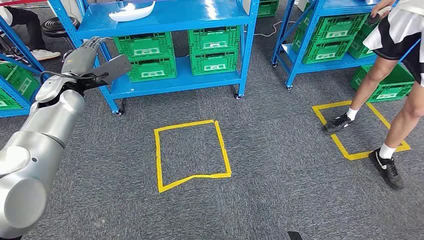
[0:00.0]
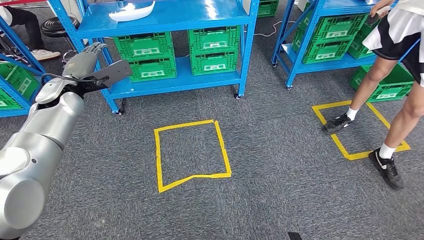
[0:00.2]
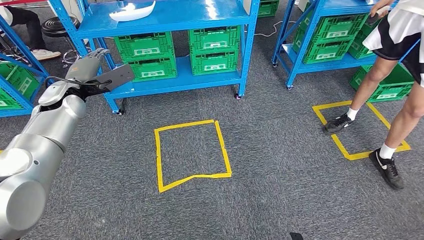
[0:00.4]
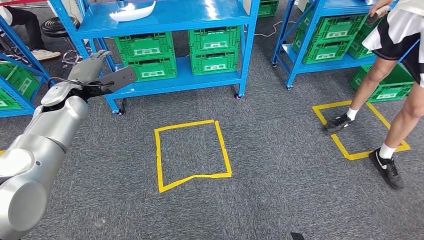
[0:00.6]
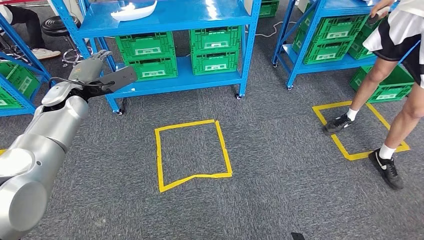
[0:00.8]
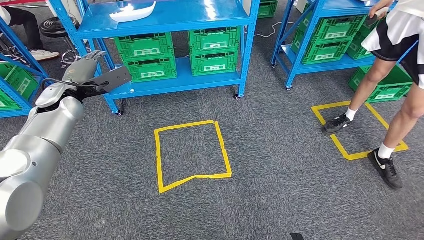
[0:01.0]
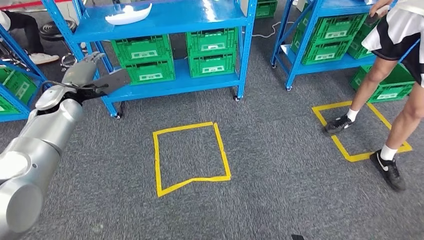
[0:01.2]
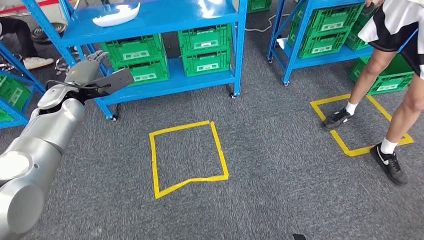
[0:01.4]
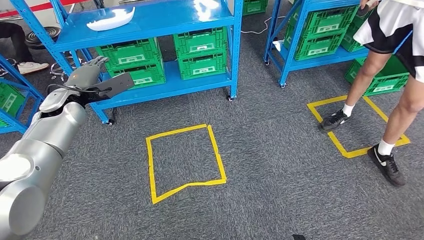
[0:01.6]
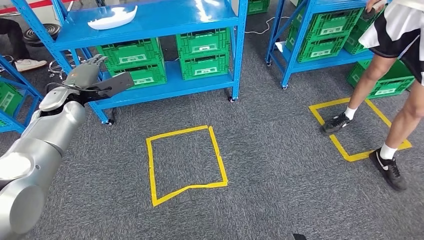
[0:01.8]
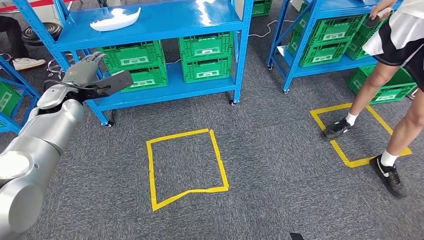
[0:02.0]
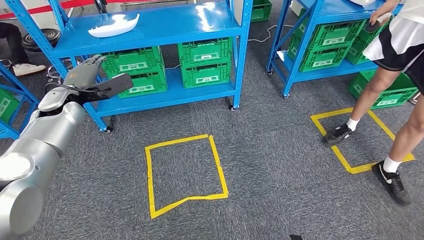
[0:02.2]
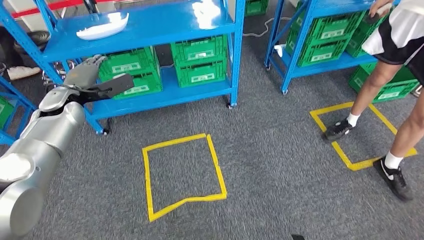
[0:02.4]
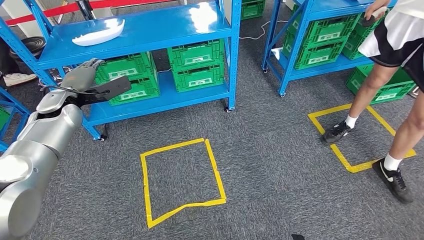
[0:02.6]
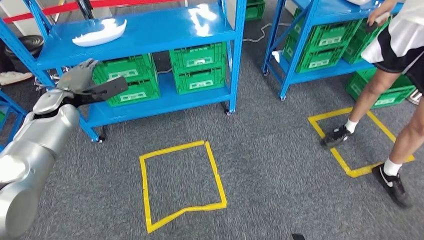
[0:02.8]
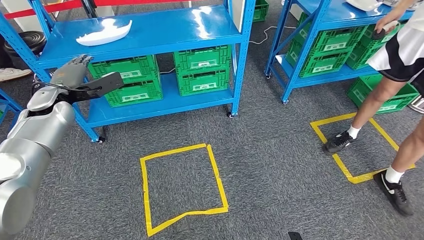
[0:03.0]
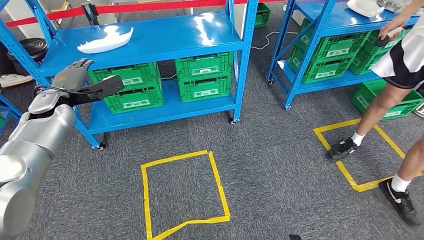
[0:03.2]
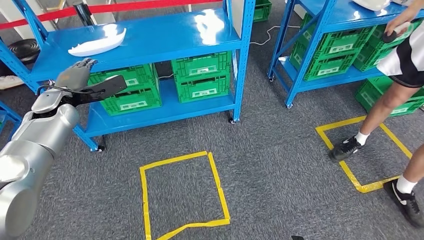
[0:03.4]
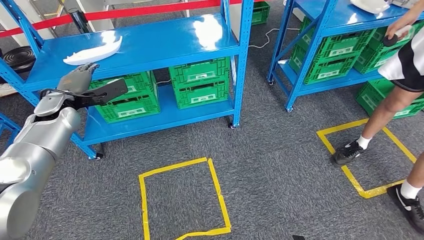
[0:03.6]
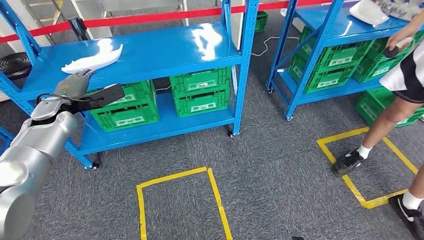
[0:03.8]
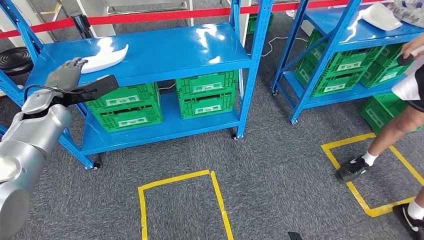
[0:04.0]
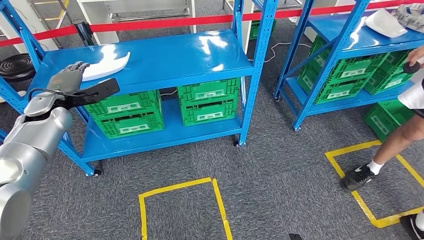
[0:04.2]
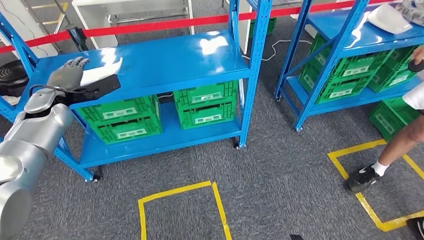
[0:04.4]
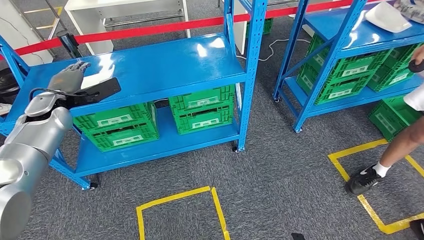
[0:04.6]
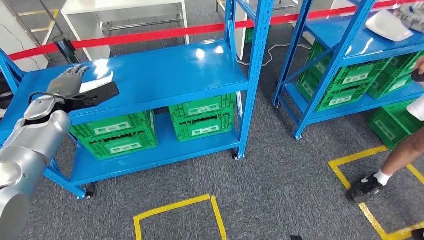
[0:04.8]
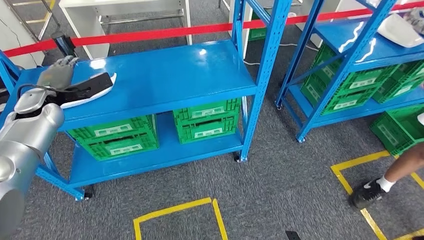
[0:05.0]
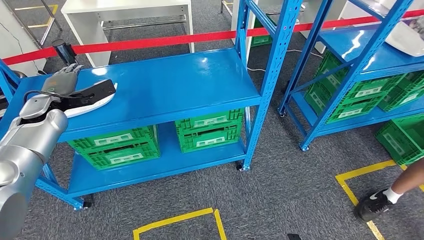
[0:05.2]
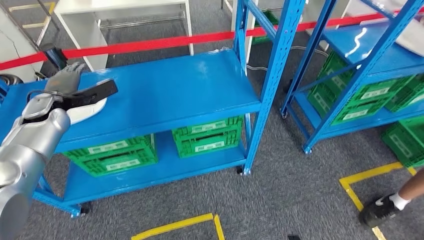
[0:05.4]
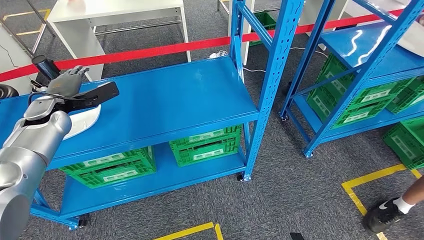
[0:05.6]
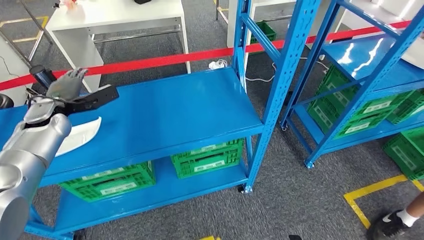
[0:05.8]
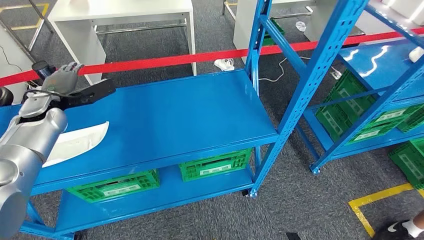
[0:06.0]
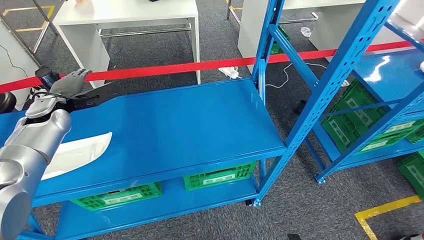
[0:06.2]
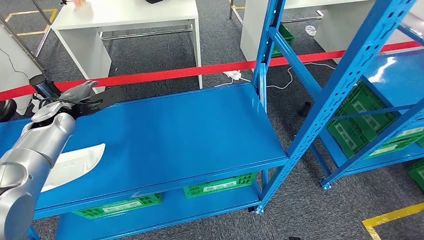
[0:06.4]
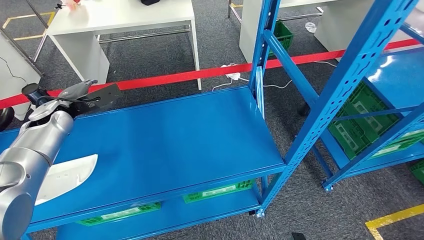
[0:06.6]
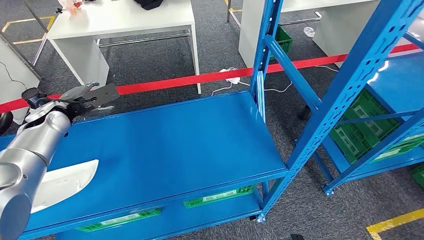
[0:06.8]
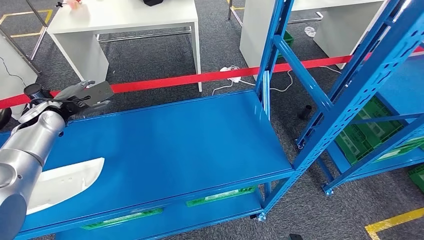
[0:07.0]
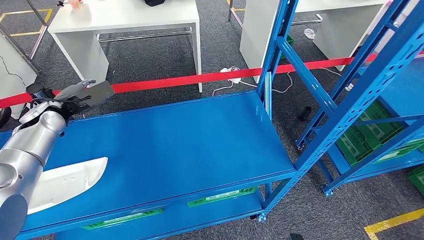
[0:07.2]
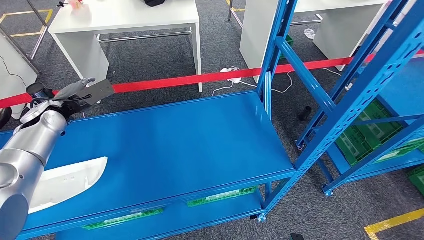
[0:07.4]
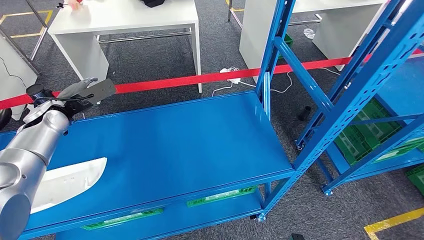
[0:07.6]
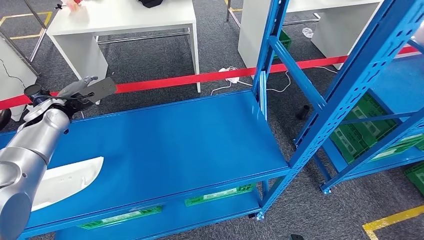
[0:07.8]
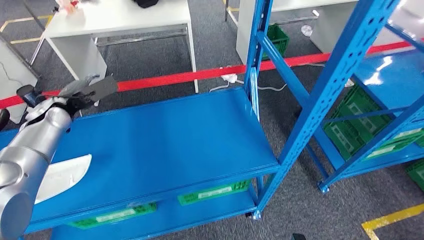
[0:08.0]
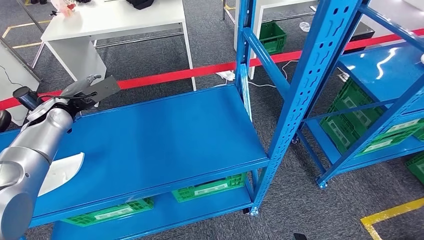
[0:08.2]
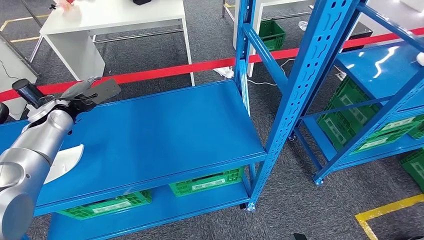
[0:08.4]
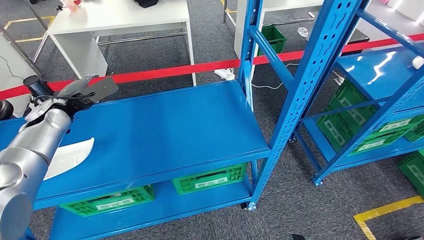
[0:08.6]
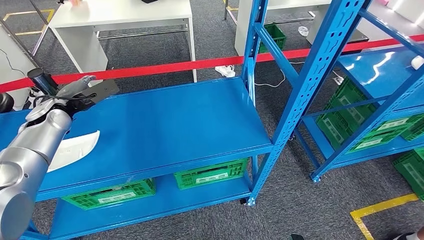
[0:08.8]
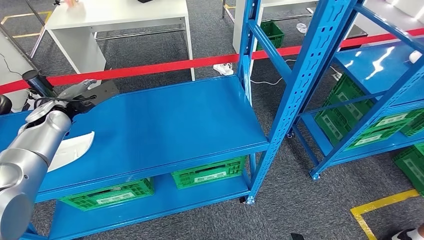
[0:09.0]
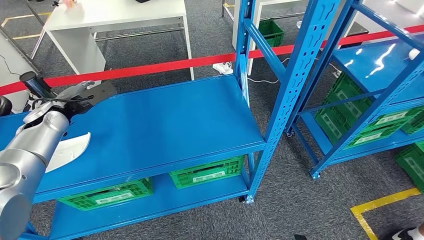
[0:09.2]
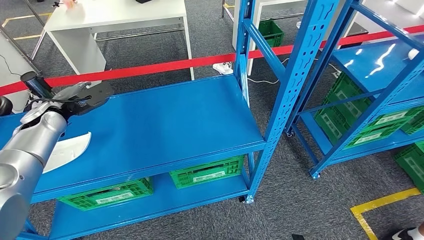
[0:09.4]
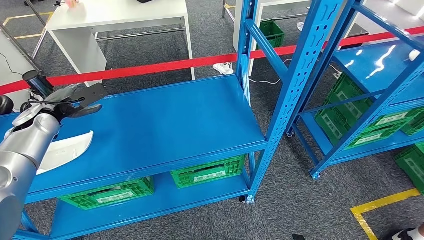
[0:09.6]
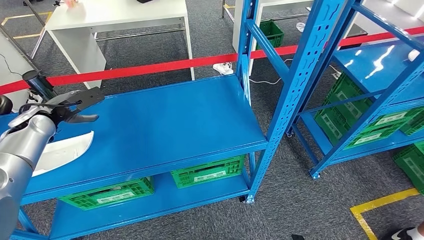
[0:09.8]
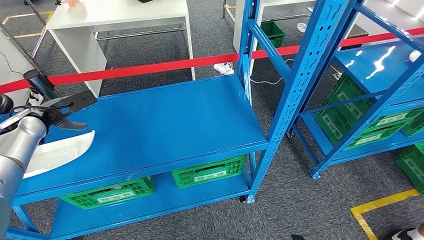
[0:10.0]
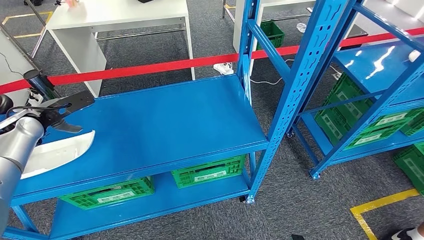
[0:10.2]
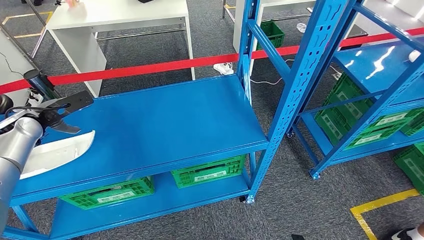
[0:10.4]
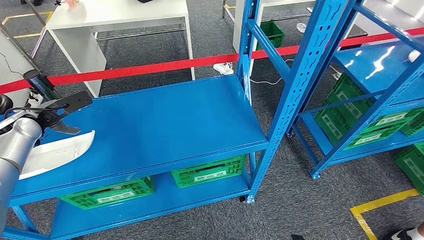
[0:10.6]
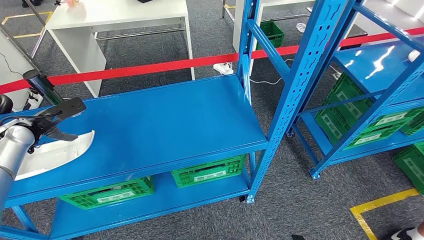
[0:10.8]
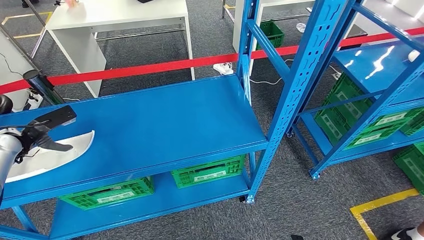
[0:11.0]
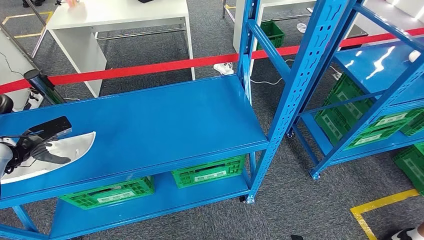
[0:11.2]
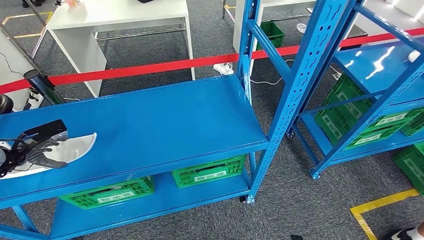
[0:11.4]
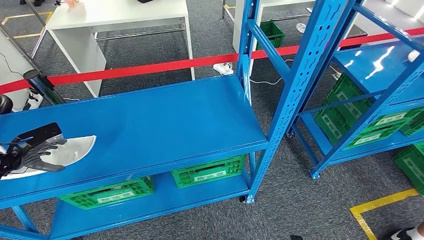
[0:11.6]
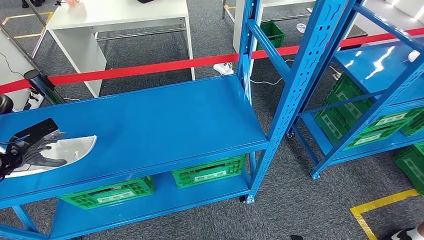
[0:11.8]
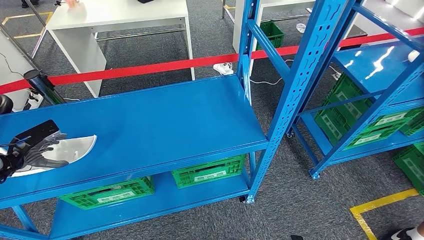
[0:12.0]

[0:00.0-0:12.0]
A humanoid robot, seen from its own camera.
0:09.0 to 0:10.4: The left hand goes roughly 10 cm to the left.
0:10.4 to 0:12.0: The left hand goes approximately 15 cm to the left, downward and backward.

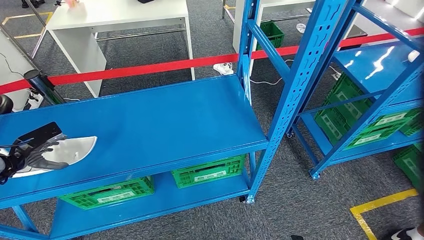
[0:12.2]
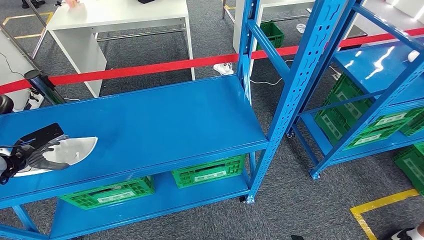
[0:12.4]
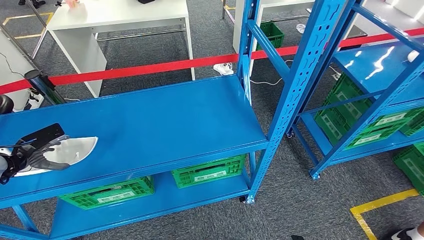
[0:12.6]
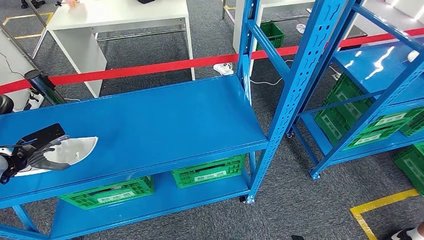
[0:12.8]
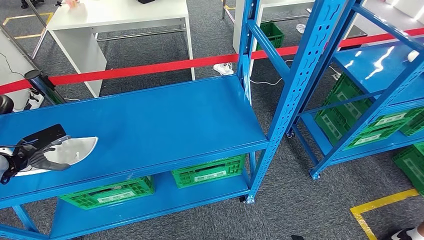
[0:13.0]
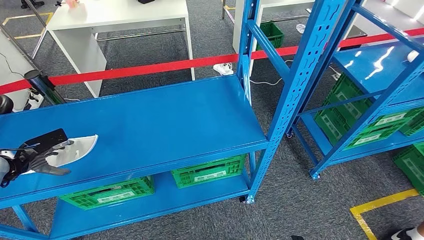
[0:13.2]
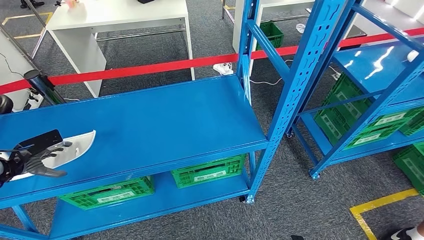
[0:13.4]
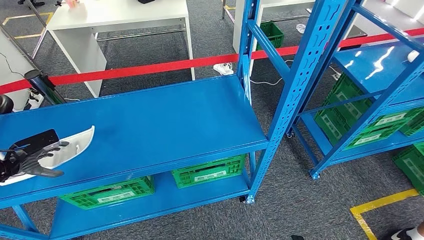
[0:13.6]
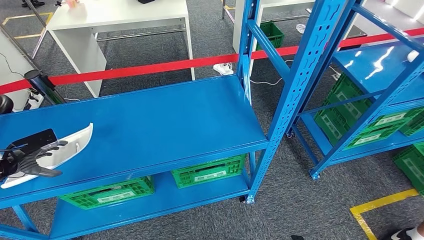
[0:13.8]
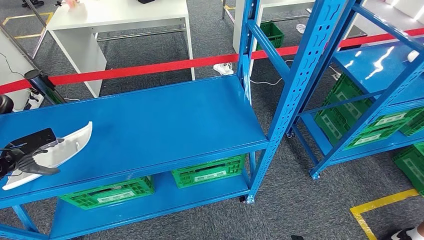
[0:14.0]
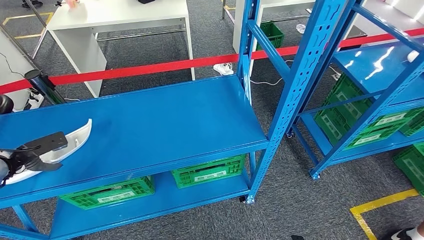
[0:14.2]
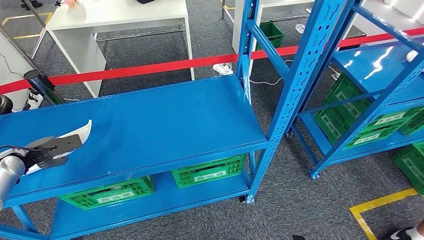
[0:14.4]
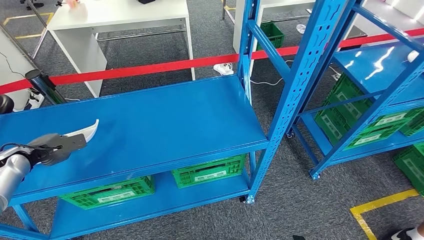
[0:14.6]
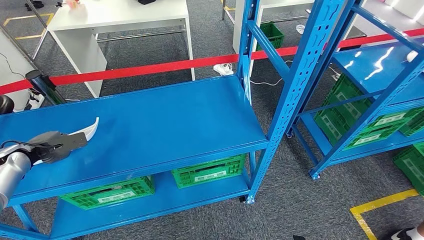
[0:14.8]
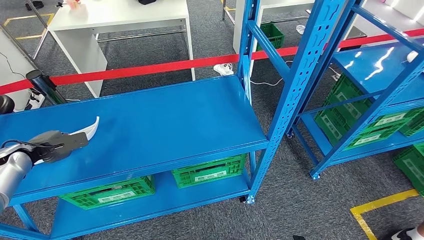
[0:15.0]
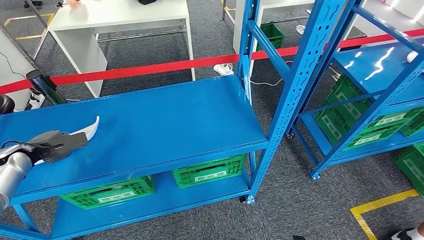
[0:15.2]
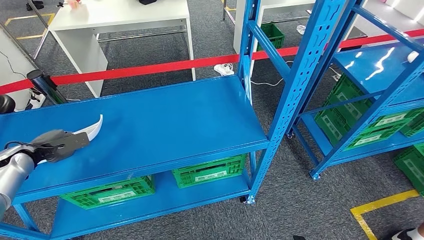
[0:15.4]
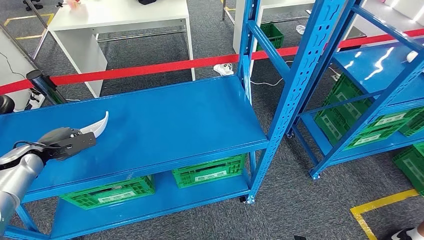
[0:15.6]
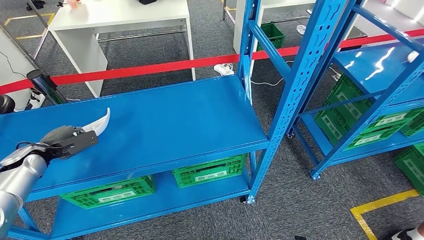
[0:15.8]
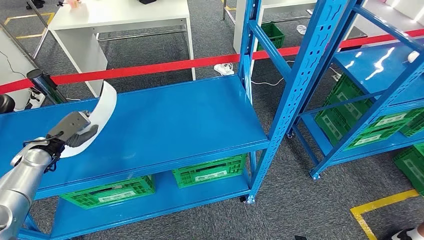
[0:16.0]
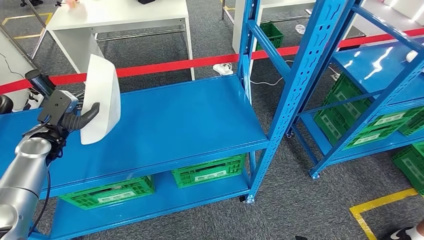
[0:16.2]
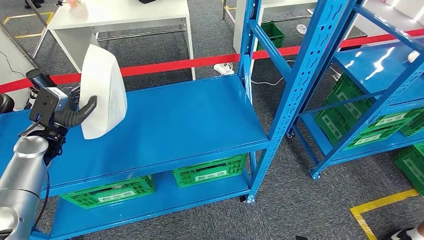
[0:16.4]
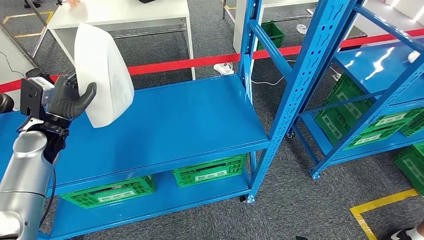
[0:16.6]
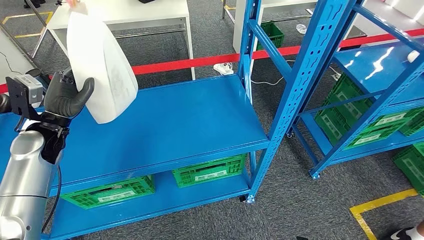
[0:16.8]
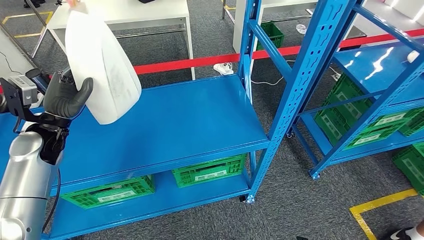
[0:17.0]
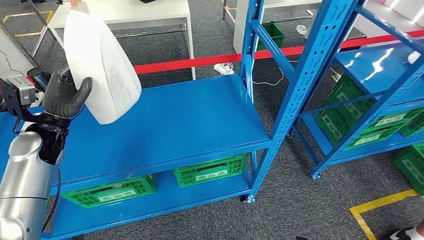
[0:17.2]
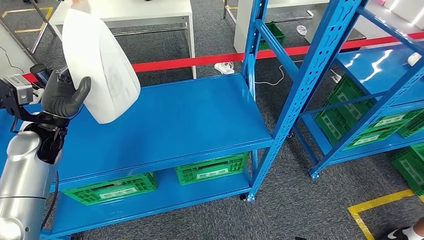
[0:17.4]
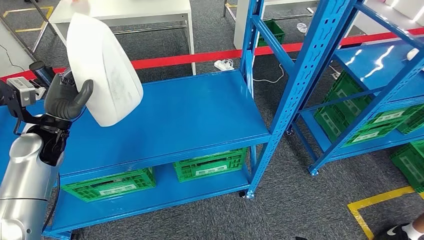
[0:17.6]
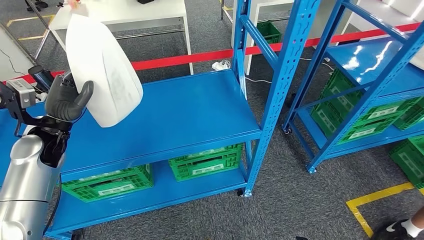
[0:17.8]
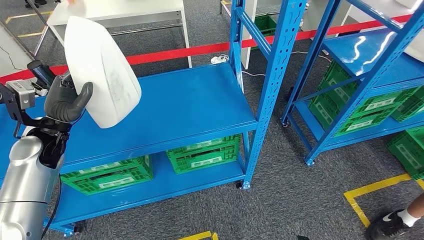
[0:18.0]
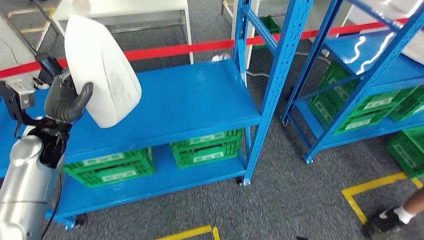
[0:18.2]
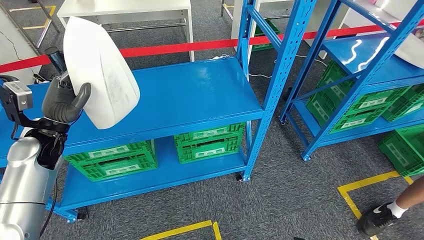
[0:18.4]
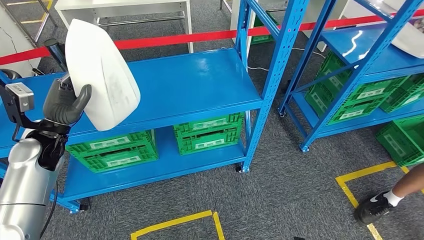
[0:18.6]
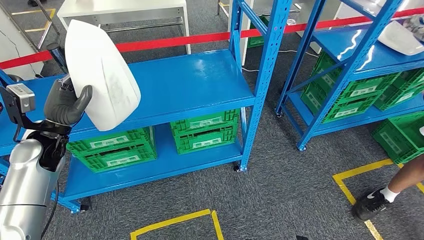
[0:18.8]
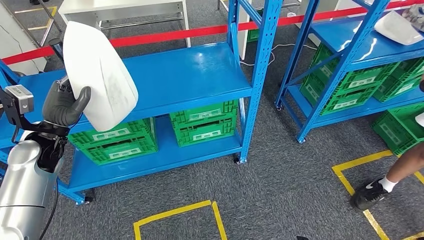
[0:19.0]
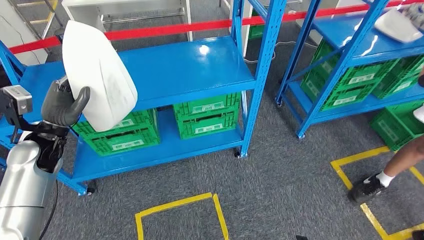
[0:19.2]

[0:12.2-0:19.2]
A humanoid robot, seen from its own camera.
Step, 0:12.2 to 0:17.0: Pick up the small component from the shelf.
0:12.2 to 0:13.6: The hands stay close to where they were, moving slightly.
0:13.6 to 0:15.0: The left hand travels to the right by roughly 5 cm.
0:15.0 to 0:16.4: The left hand travels to the right by roughly 10 cm.
